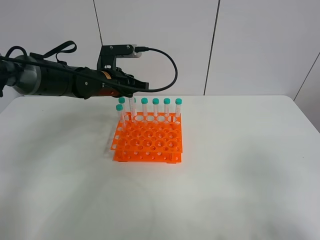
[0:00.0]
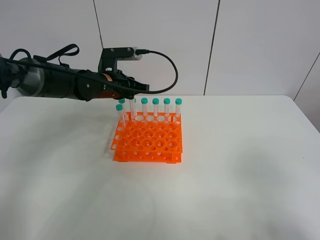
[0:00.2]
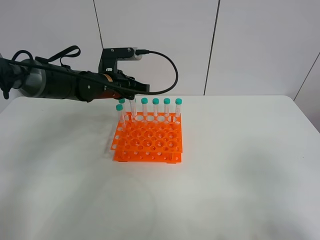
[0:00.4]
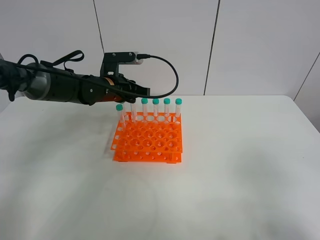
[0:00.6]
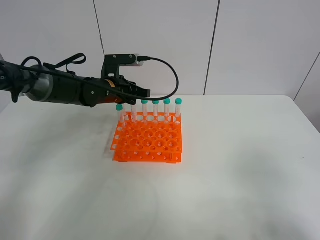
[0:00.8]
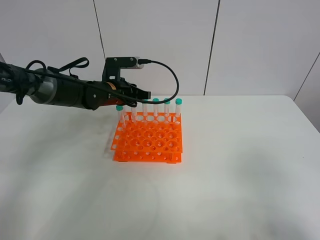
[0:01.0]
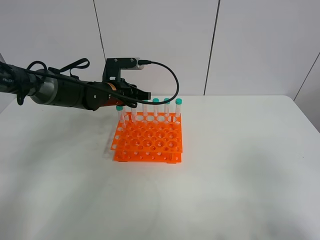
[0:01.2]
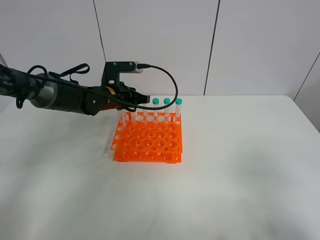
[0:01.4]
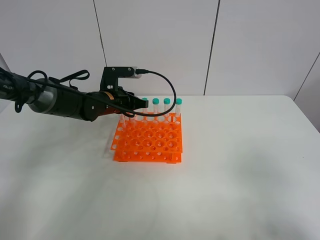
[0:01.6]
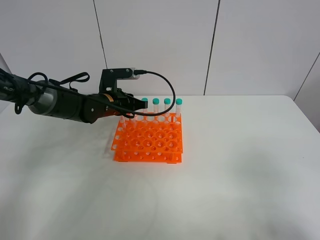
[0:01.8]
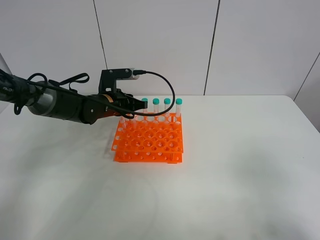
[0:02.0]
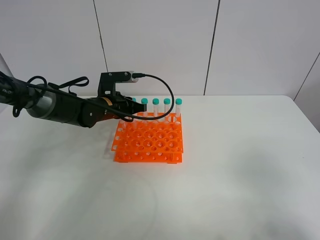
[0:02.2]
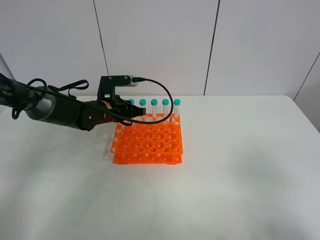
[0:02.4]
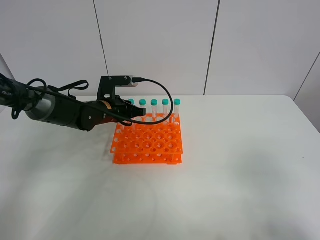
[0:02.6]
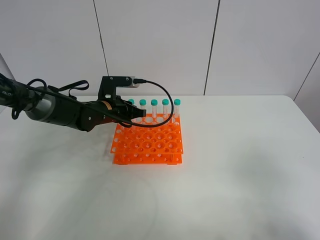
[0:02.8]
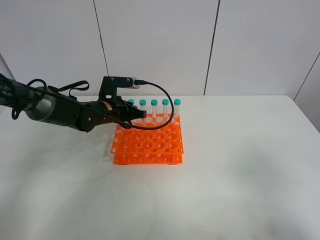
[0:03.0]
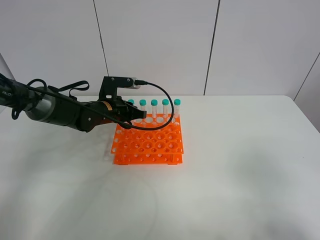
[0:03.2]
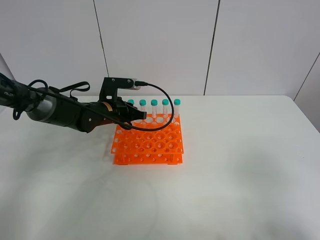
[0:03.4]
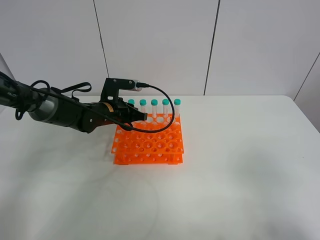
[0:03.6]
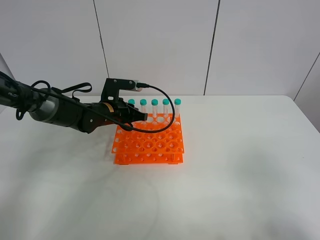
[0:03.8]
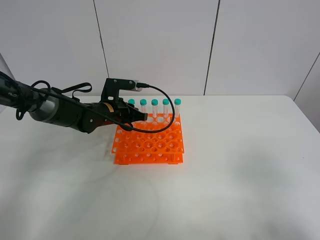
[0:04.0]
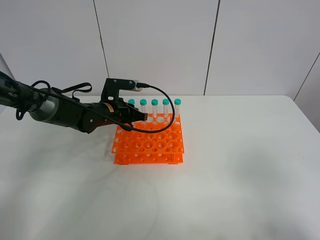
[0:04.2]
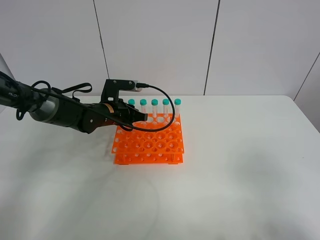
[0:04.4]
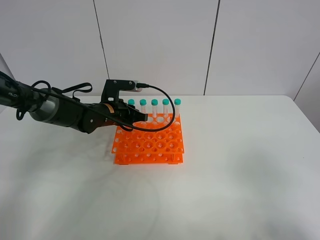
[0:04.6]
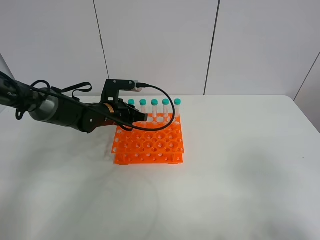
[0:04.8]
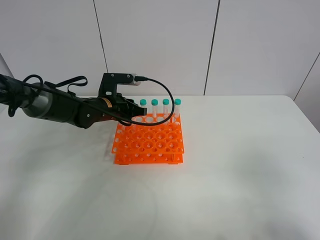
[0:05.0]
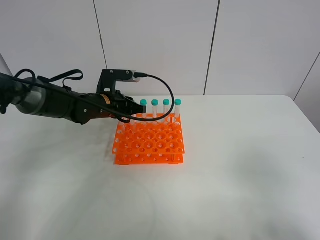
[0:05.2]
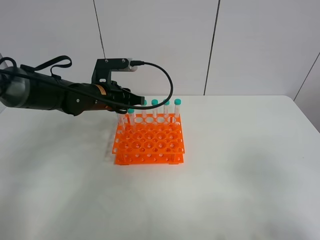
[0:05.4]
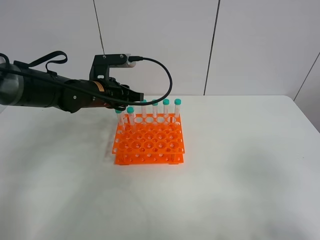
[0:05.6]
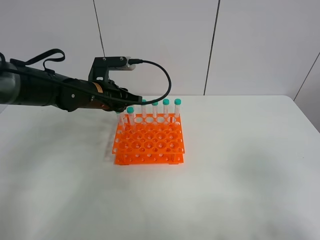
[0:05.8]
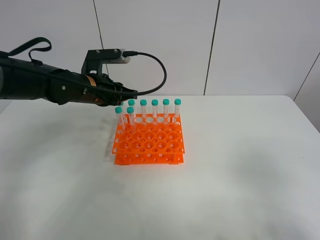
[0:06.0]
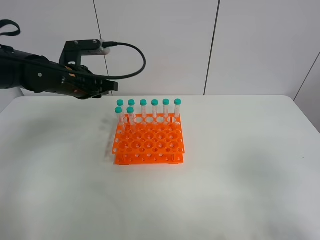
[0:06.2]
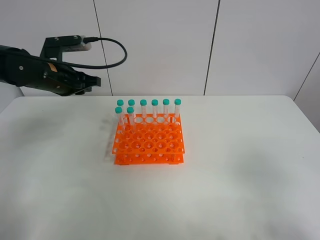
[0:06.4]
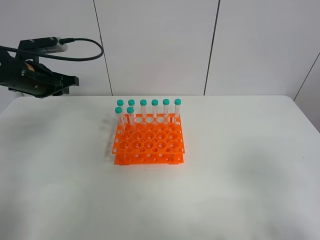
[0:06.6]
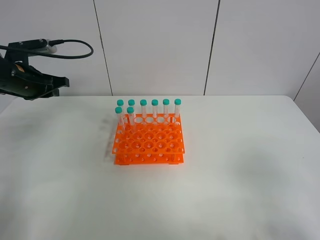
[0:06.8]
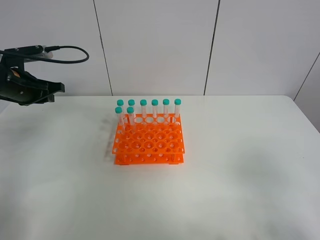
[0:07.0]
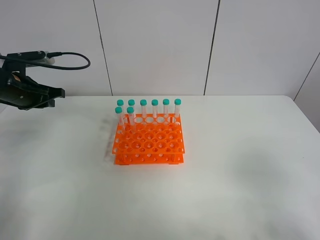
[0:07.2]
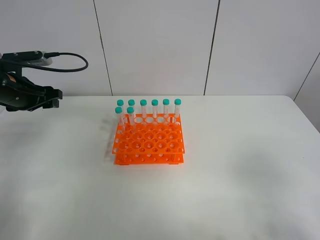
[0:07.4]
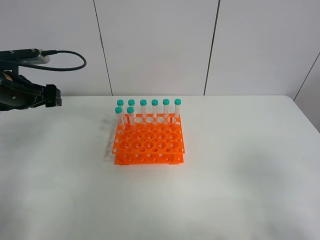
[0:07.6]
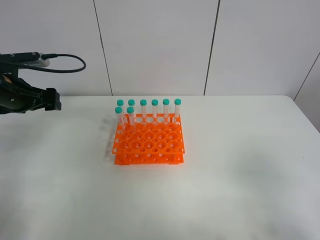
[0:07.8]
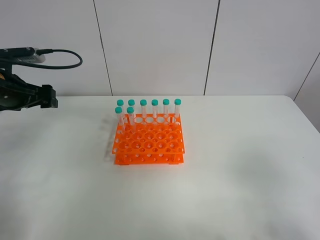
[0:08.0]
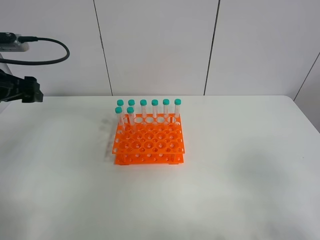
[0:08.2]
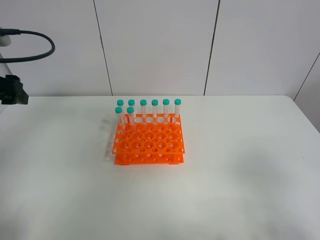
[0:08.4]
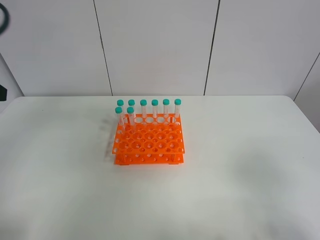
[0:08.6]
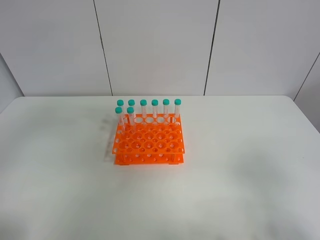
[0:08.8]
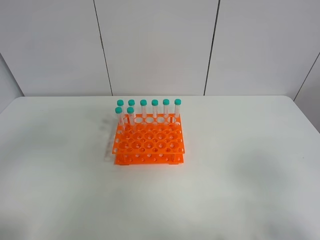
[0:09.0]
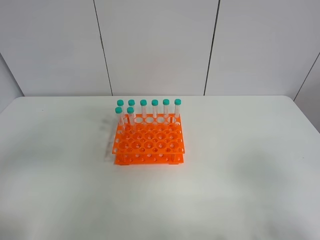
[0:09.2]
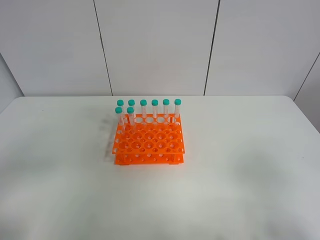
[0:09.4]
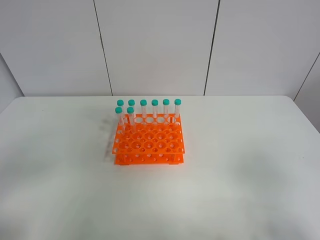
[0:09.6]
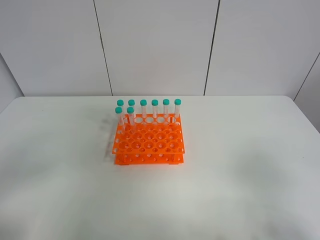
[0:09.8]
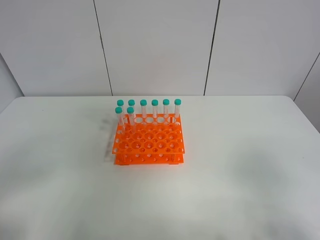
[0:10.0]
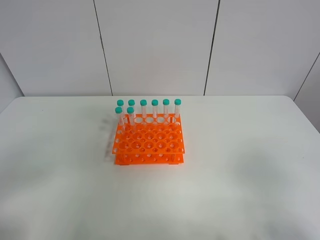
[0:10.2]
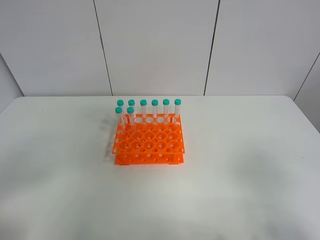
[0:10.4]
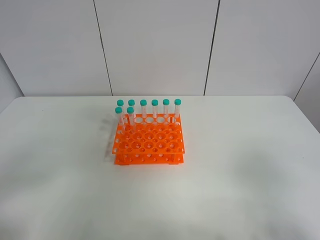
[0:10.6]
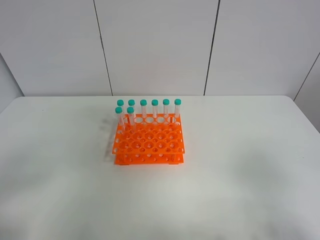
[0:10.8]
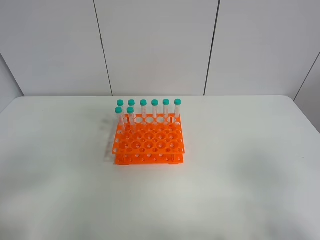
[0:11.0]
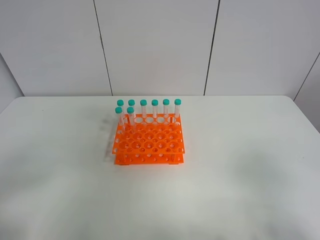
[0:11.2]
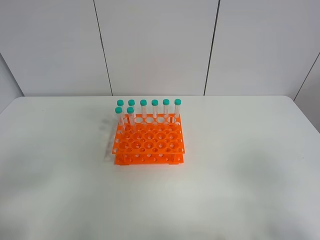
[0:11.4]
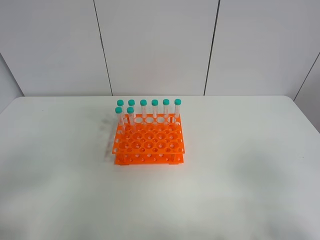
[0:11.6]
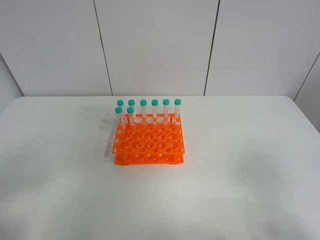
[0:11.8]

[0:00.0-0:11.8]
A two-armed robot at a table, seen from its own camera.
Task of the whole recording: Put the test tube on the table back onto the test tube rack.
Step, 0:00.0 to 0:04.8: Place the test tube on the test tube rack with the left gripper.
0:00.0 to 0:01.4: There are only small adjustments of the grippers.
0:01.4 to 0:03.0: There are only small adjustments of the grippers.
0:03.0 to 0:04.4: Both grippers stay about where they are.
0:04.4 to 0:06.0: The left gripper travels upward by some 10 cm.
0:06.0 to 0:07.4: The left gripper shifts roughly 15 cm to the left, and opens its fingers.
0:07.4 to 0:08.8: The left gripper heads backward and upward, covering some 25 cm.
